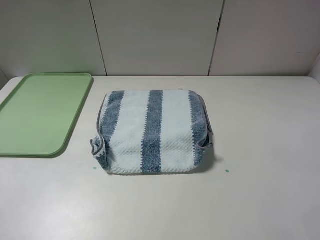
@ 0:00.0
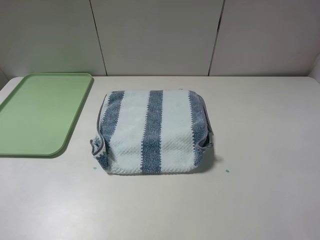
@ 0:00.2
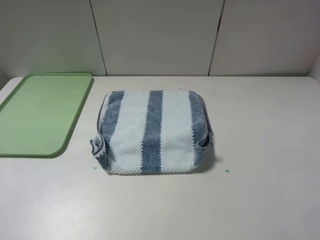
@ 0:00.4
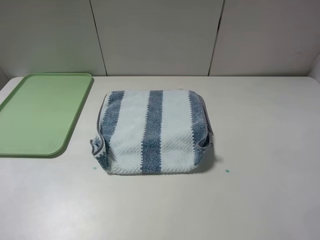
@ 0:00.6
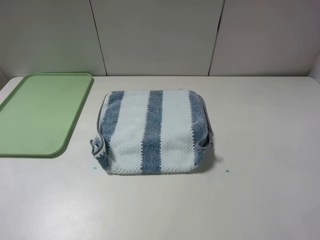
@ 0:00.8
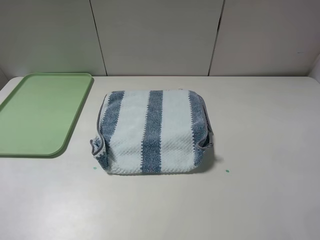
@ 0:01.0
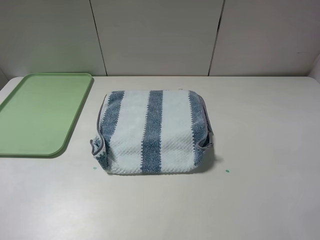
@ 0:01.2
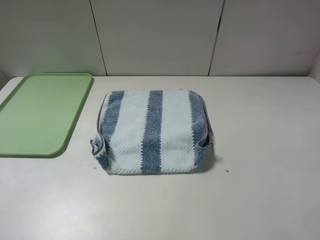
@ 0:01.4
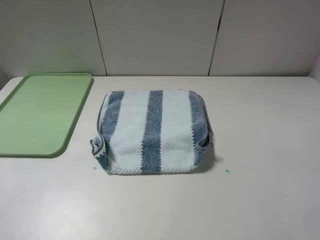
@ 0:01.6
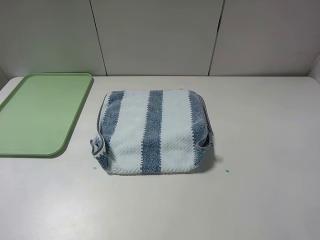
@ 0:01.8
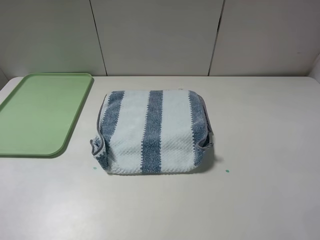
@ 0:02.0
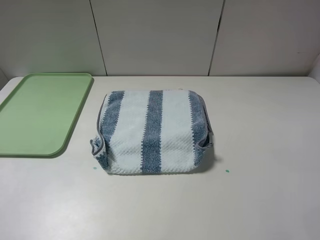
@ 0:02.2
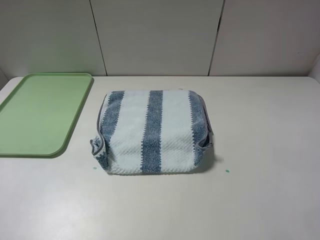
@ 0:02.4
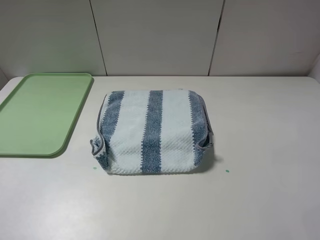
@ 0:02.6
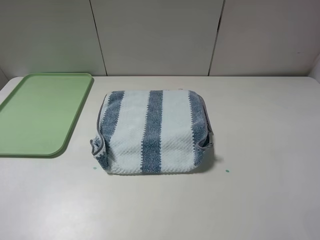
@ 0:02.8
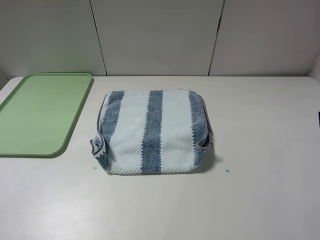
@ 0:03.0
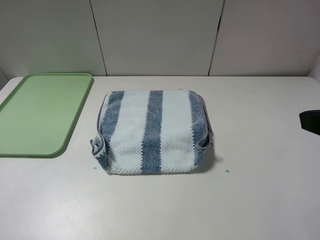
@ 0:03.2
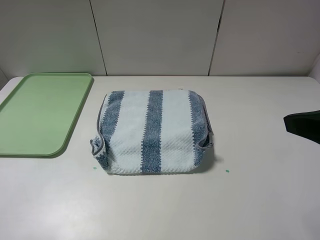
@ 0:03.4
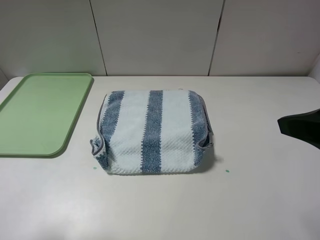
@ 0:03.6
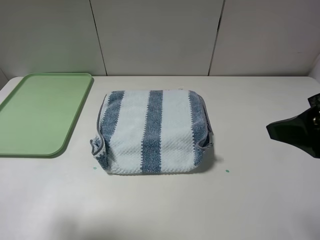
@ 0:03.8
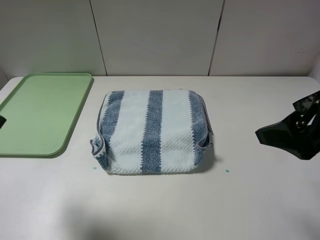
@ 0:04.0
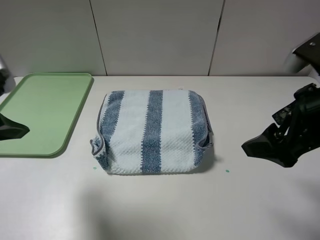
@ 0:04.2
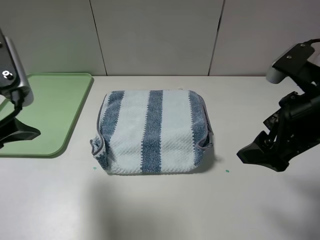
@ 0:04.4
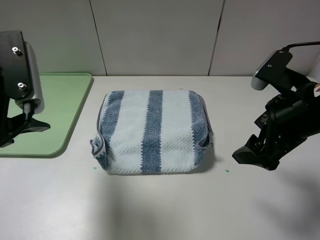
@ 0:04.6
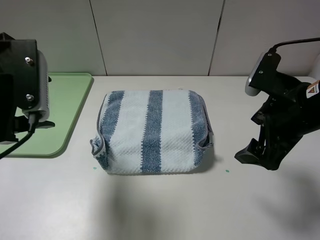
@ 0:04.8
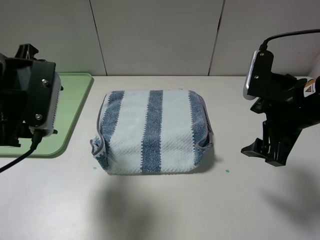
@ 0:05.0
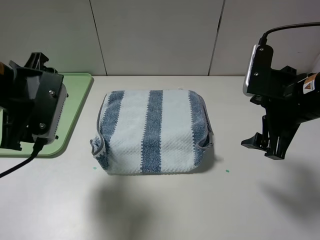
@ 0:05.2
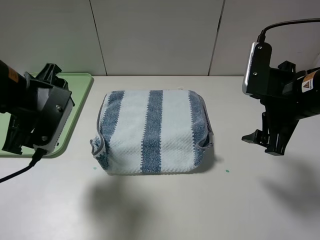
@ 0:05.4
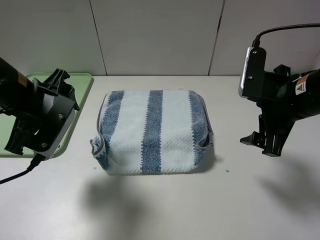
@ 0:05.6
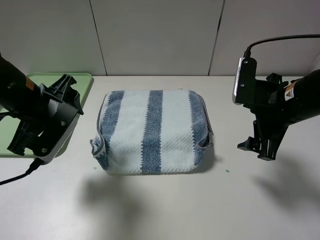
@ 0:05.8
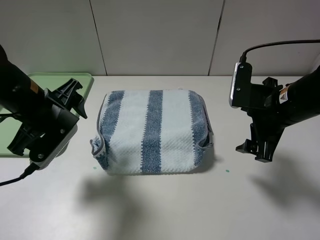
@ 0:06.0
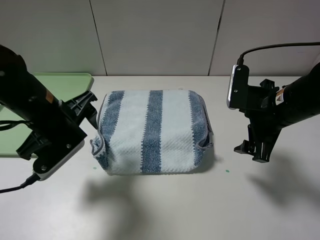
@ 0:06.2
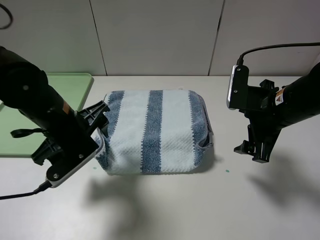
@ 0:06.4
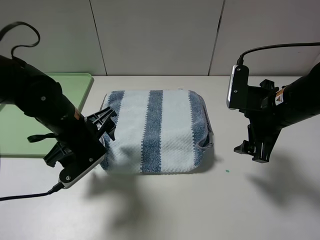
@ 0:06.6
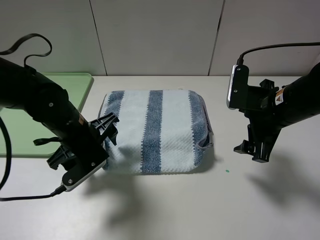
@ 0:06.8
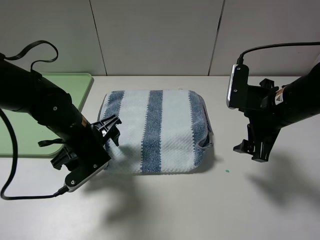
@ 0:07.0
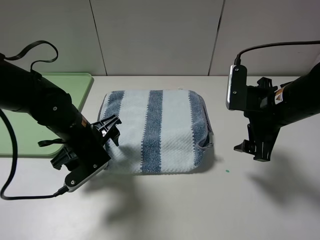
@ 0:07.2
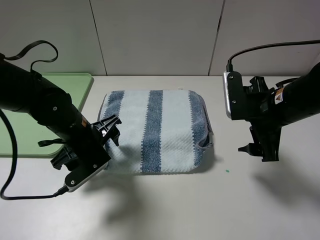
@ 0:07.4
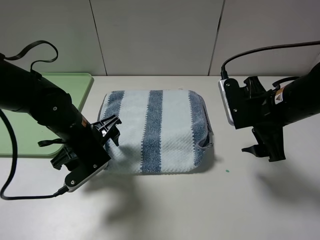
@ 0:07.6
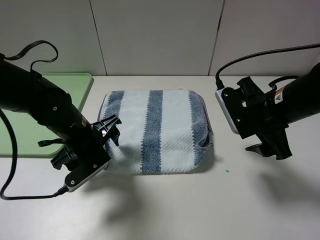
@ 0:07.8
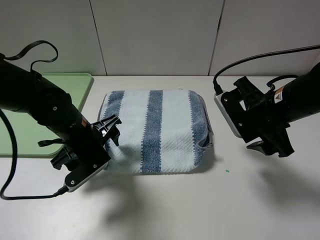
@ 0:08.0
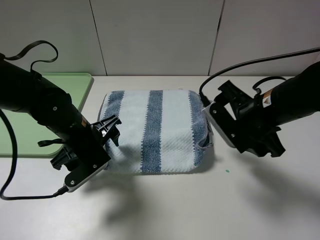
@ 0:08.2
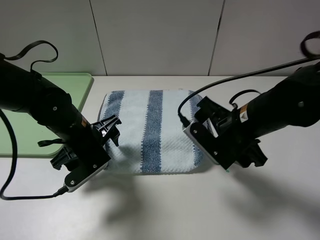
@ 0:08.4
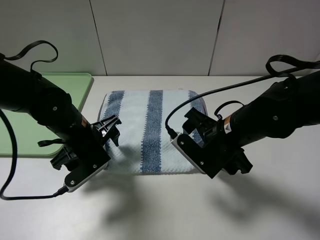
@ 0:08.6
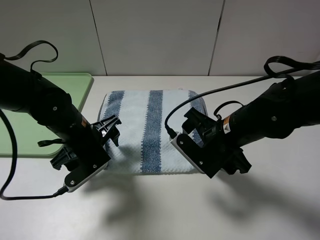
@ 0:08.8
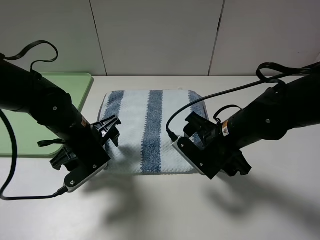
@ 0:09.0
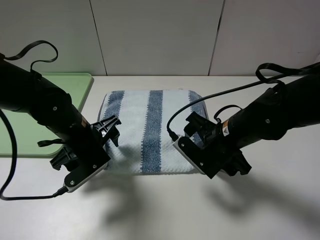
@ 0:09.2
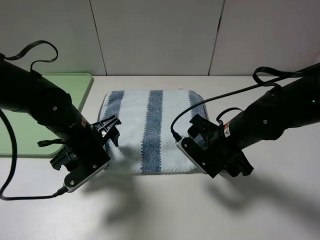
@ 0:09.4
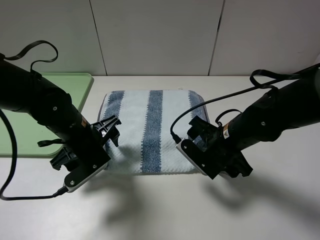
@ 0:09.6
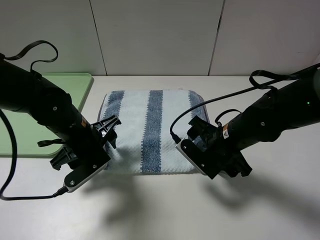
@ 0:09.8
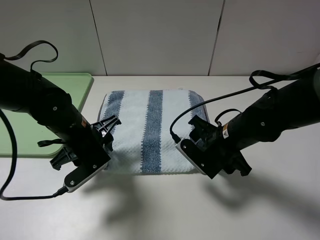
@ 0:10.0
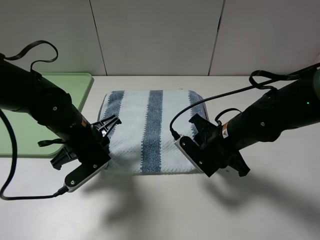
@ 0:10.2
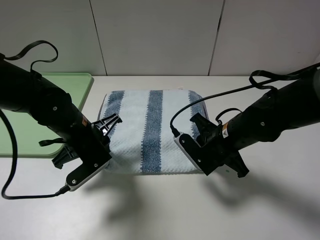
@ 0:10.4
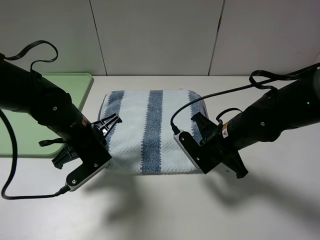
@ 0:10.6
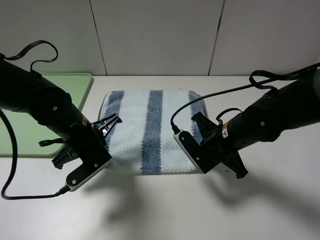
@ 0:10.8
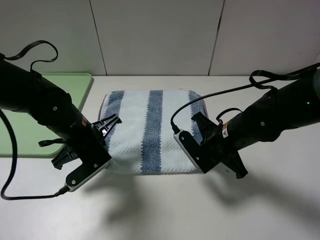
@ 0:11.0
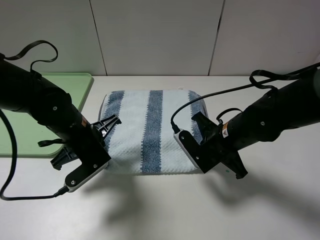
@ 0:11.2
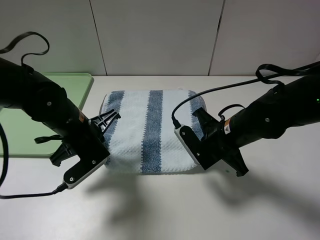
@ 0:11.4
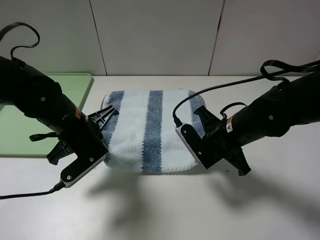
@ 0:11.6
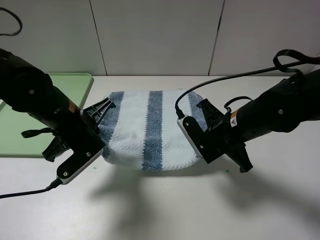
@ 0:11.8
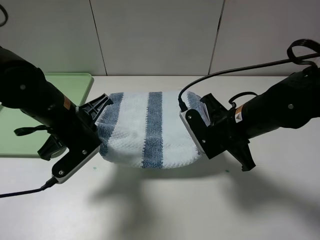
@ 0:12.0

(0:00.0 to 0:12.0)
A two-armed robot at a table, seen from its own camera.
Step, 0:00.0 - 0:11.2: Grasp the blue white towel with the left gripper.
0:00.0 - 0:01.6: The two grippers keep their place.
0:03.0 - 0:04.4: The right gripper heads forward, downward and to the left, covering roughly 15 cm. Meanwhile the left gripper shifts about 20 cm forward and to the right.
0:04.4 - 0:06.0: The right gripper is displaced forward and downward by some 10 cm; the left gripper shifts roughly 10 cm downward and forward.
0:06.0 - 0:07.6: The left gripper heads downward, covering roughly 10 cm.
0:07.6 - 0:09.0: The right gripper is displaced to the left and downward by about 10 cm.
0:09.0 - 0:10.4: The left gripper closes up. The right gripper closes up.
0:10.4 - 0:12.0: The right gripper closes. The left gripper is displaced upward by about 5 cm.

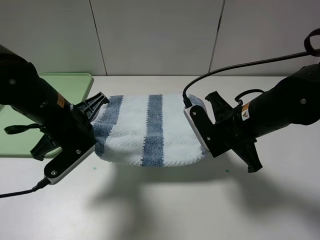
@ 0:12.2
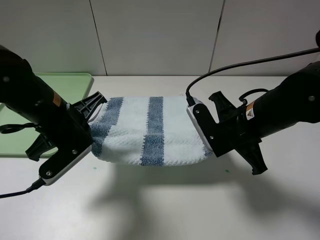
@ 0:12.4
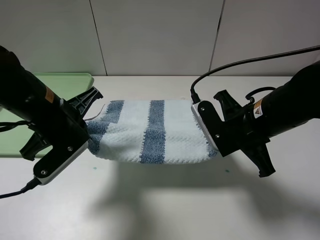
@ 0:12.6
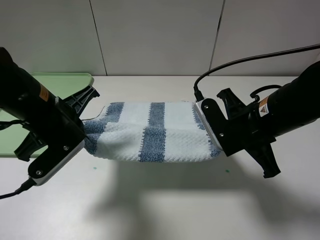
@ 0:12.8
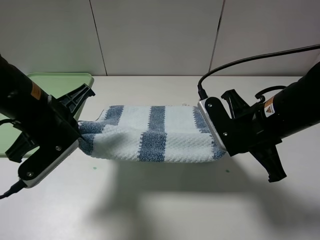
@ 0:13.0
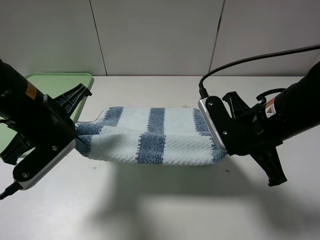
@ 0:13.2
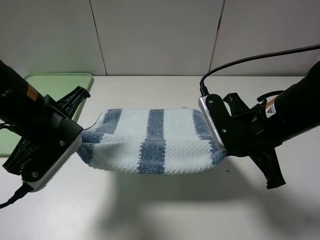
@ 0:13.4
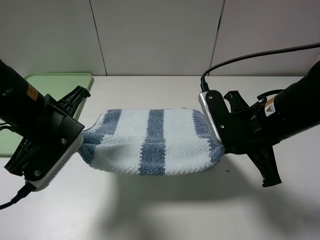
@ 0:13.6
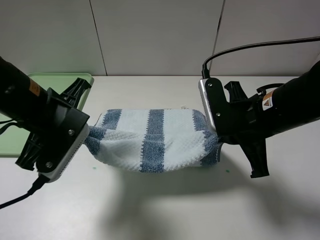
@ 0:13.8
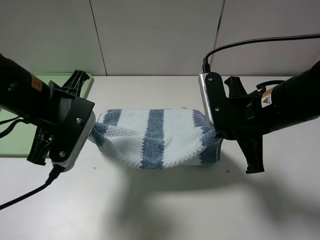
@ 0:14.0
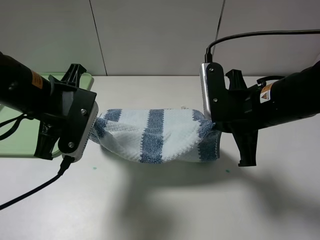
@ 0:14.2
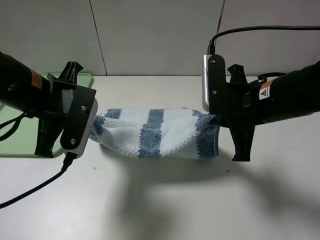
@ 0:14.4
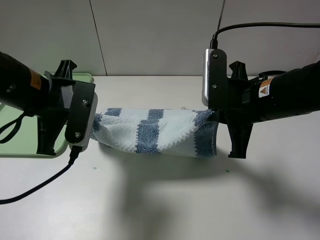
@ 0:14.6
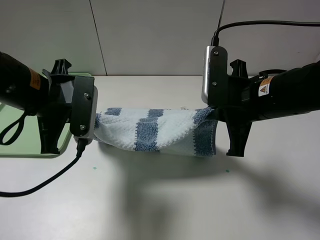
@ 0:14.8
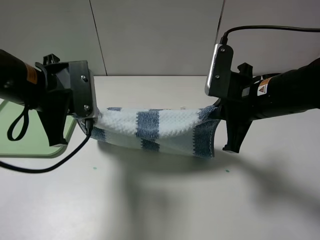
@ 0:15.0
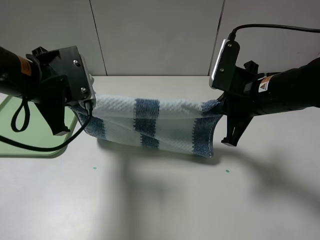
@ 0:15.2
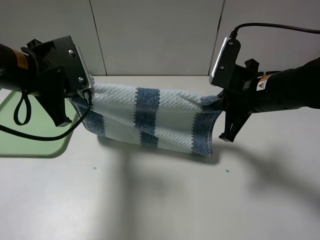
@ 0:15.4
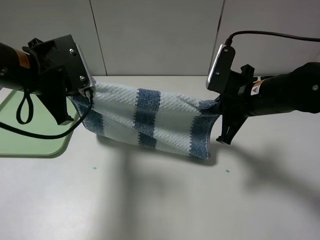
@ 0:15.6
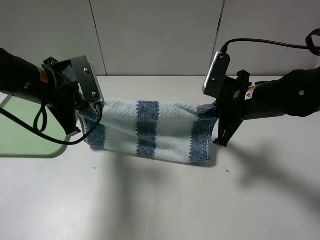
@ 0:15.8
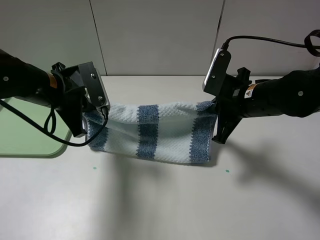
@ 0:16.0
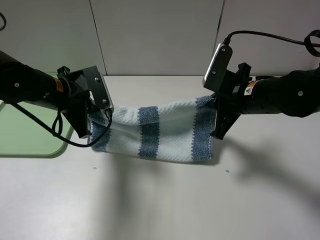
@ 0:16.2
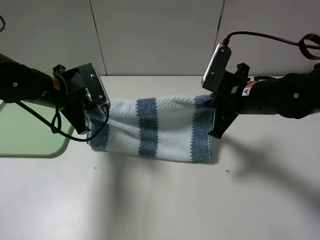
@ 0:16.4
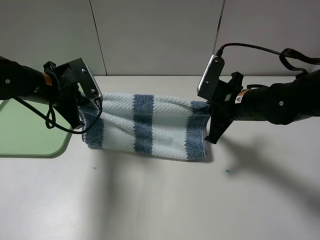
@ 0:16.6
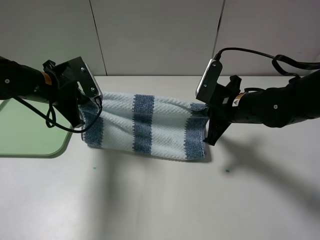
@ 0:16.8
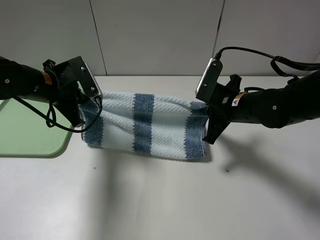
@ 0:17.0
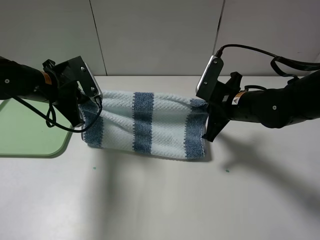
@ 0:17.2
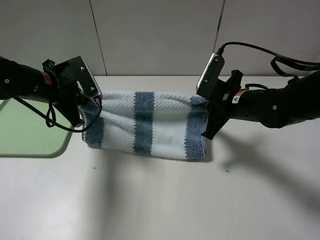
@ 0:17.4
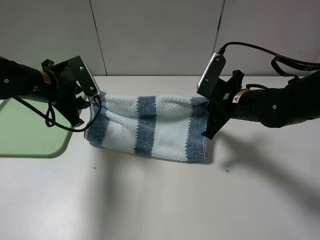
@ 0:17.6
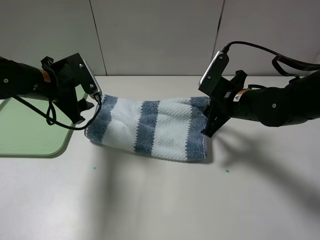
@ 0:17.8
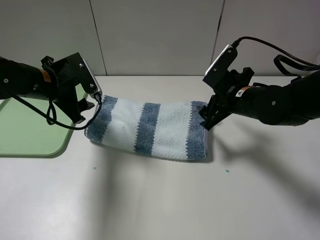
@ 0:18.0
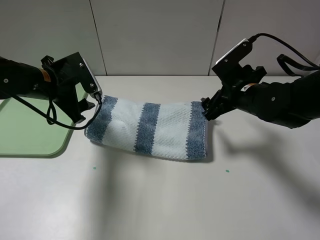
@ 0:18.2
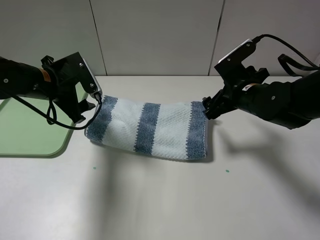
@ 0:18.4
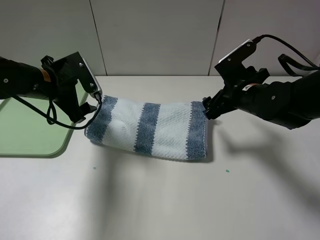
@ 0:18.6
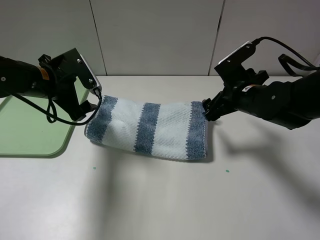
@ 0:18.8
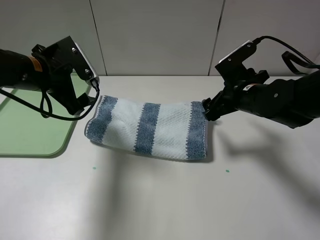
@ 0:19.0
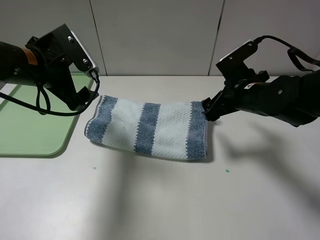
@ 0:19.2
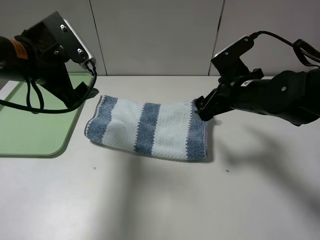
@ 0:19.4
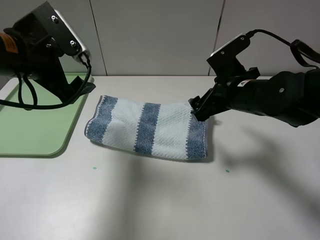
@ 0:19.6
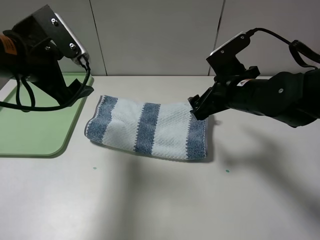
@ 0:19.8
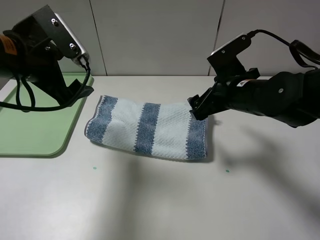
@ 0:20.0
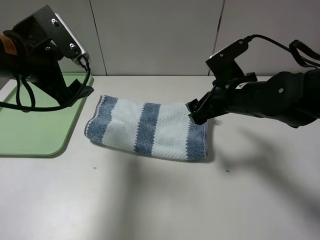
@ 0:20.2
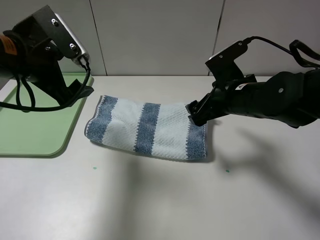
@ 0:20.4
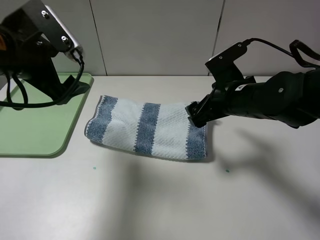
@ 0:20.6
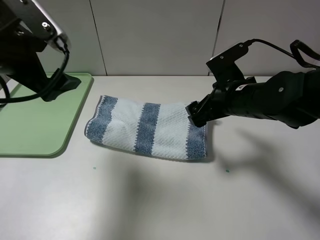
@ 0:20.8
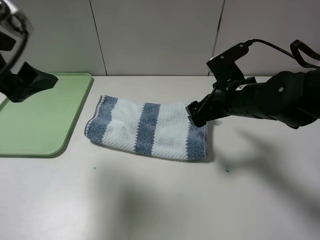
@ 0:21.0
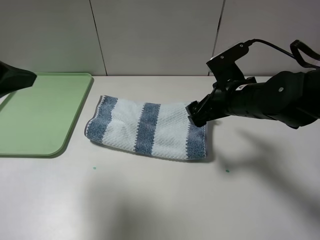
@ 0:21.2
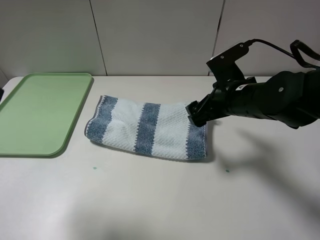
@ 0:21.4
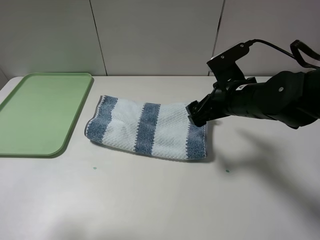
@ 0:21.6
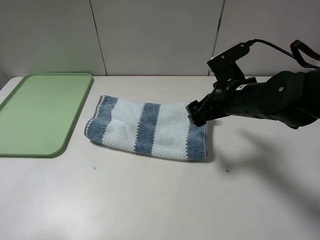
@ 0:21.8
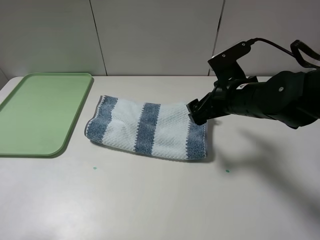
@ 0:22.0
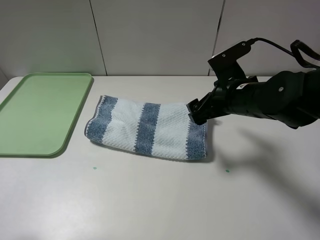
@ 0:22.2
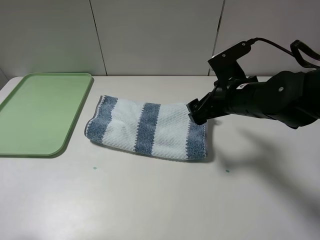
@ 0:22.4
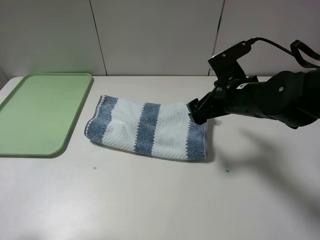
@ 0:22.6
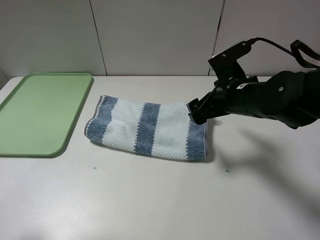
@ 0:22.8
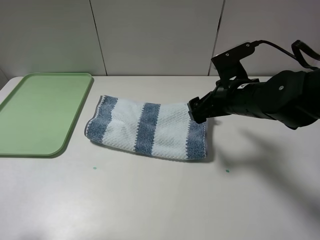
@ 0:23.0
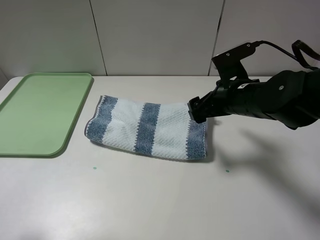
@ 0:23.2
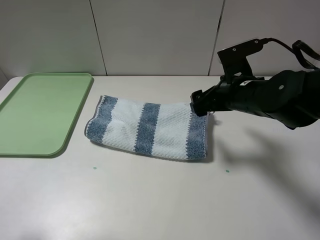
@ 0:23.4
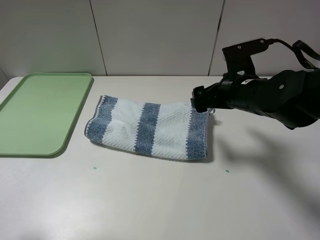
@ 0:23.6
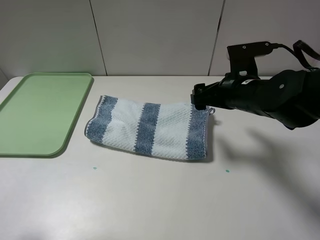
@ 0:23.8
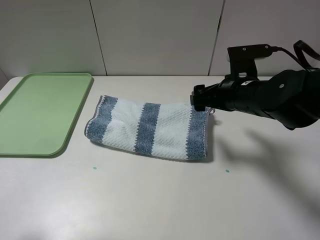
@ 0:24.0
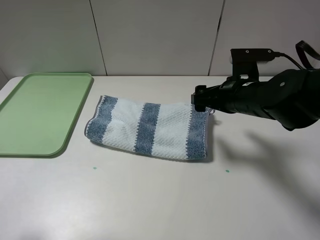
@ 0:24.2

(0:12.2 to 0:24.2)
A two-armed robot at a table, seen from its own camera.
Step, 0:12.2 - 0:18.6: Fold the blue white towel upwards with the left gripper.
0:15.2 - 0:16.6: The left gripper heads downward and forward, covering approximately 10 cm. Meanwhile the right gripper heads downward, covering approximately 5 cm.
0:16.6 - 0:18.2: The right gripper opens its fingers. The left gripper opens up.
0:18.2 - 0:19.8: The left gripper heads upward and backward, covering about 10 cm.
0:19.8 - 0:21.2: The left gripper travels backward, upward and to the left by some 15 cm.
0:21.2 - 0:22.6: The left gripper shifts some 10 cm backward and downward.
